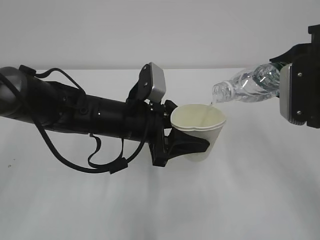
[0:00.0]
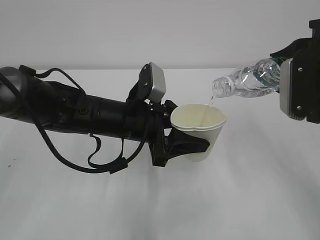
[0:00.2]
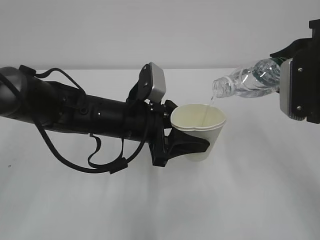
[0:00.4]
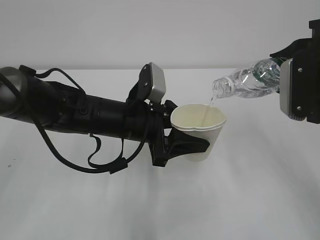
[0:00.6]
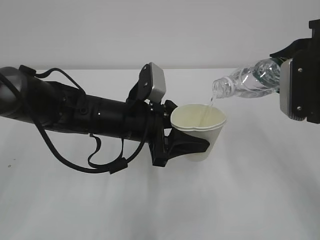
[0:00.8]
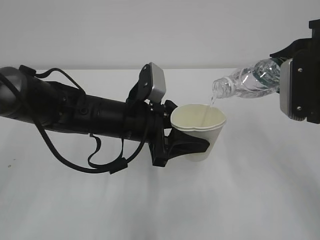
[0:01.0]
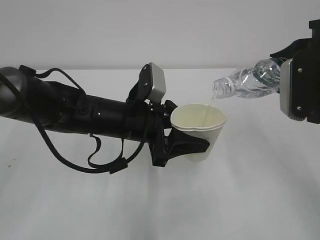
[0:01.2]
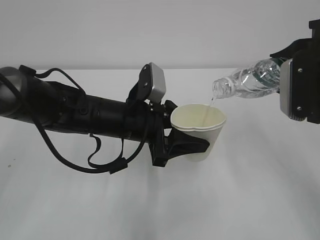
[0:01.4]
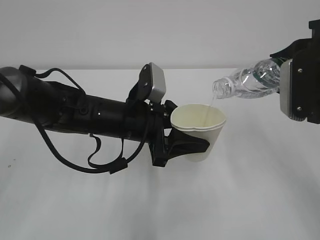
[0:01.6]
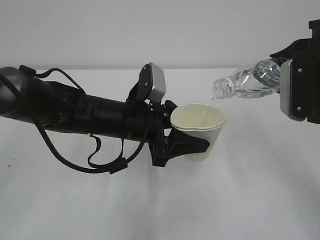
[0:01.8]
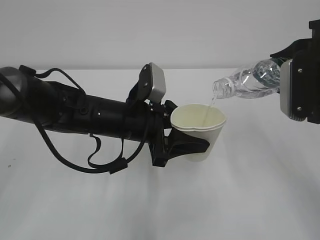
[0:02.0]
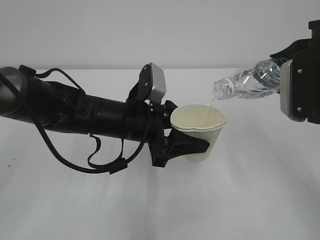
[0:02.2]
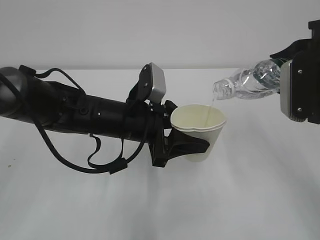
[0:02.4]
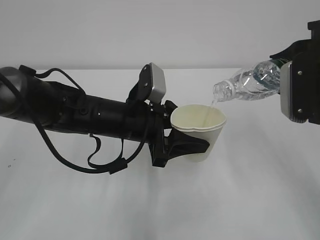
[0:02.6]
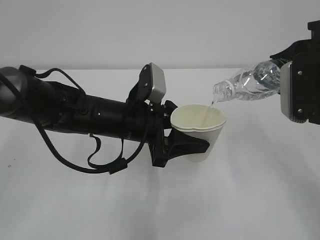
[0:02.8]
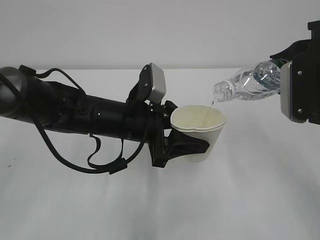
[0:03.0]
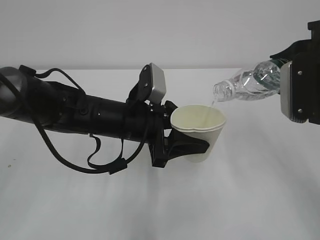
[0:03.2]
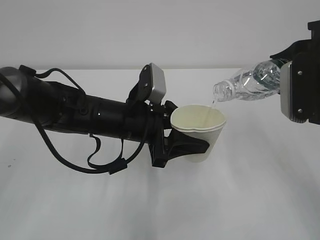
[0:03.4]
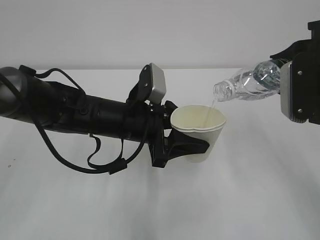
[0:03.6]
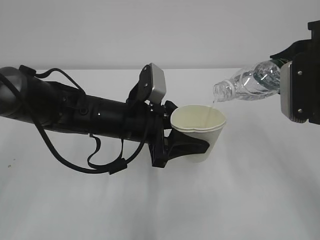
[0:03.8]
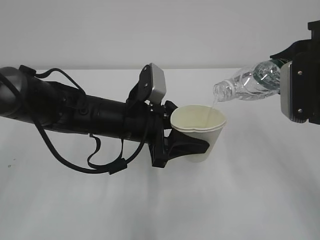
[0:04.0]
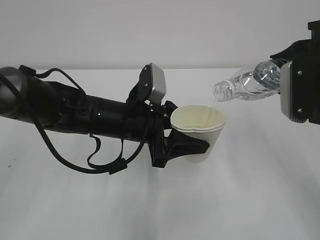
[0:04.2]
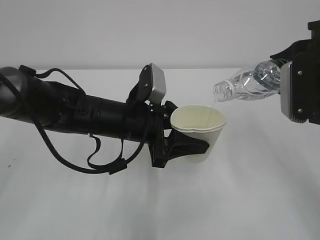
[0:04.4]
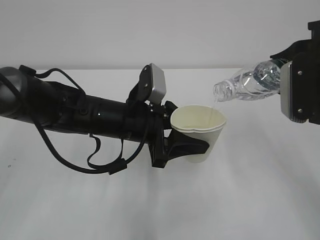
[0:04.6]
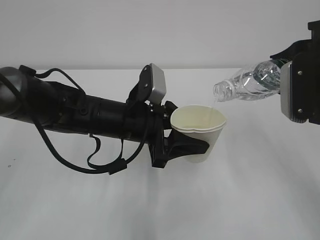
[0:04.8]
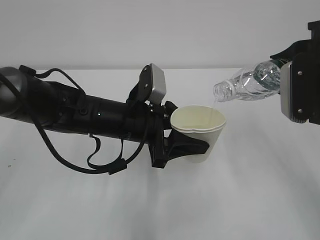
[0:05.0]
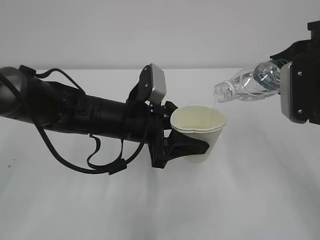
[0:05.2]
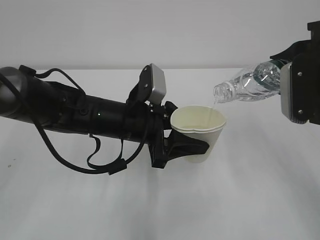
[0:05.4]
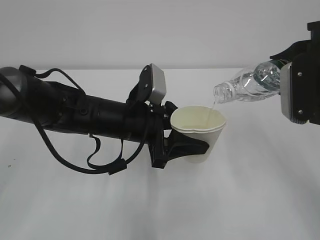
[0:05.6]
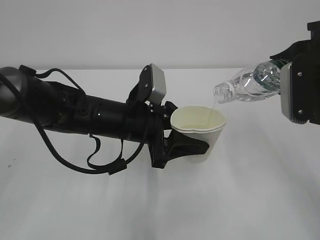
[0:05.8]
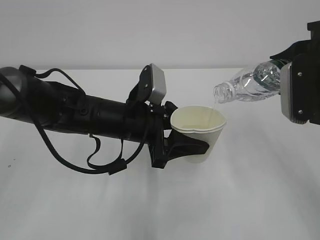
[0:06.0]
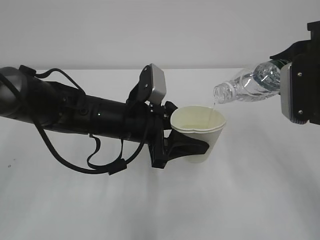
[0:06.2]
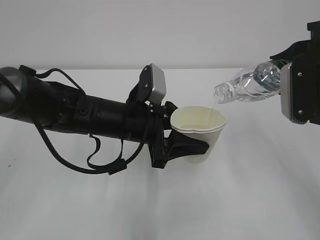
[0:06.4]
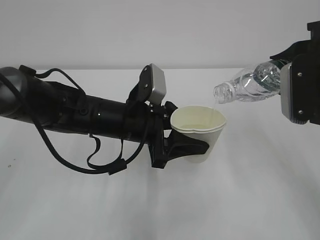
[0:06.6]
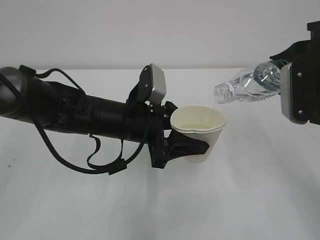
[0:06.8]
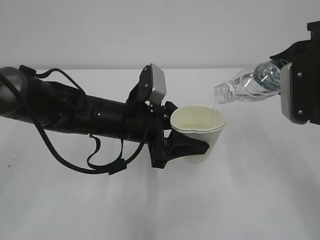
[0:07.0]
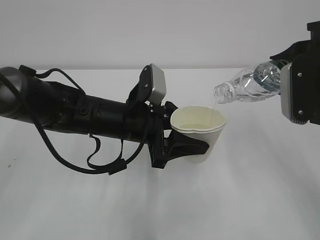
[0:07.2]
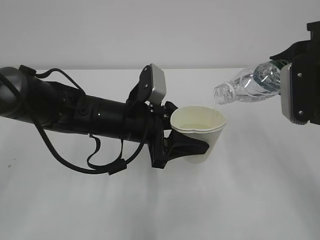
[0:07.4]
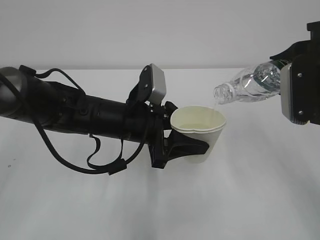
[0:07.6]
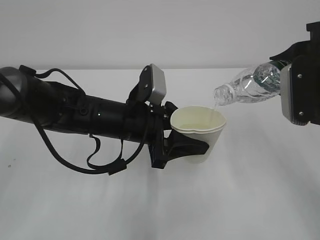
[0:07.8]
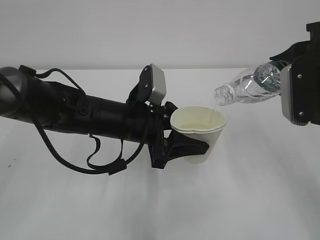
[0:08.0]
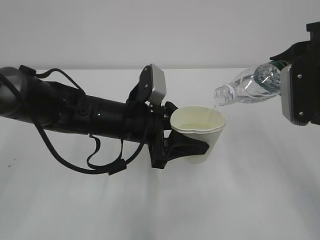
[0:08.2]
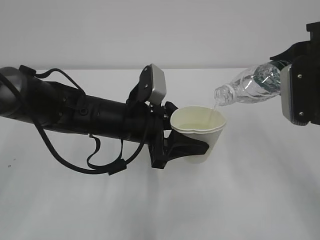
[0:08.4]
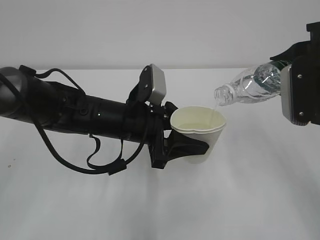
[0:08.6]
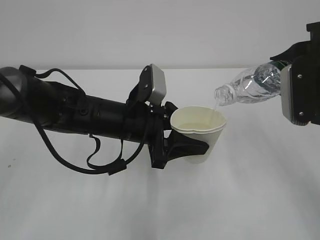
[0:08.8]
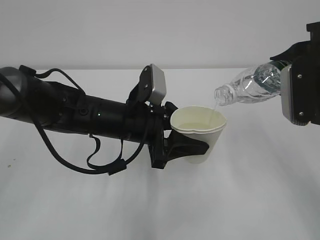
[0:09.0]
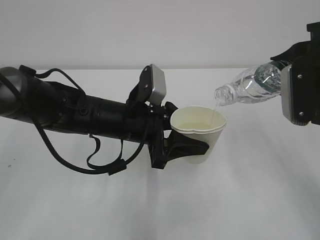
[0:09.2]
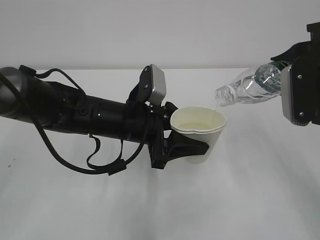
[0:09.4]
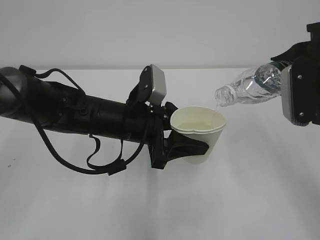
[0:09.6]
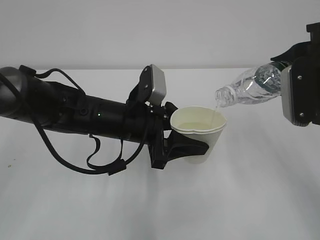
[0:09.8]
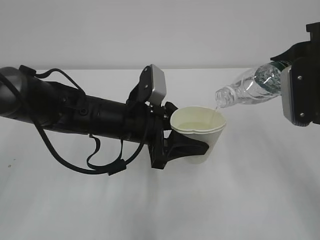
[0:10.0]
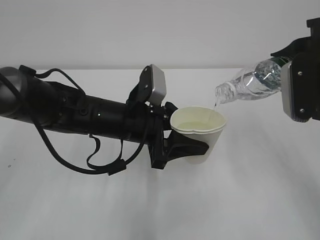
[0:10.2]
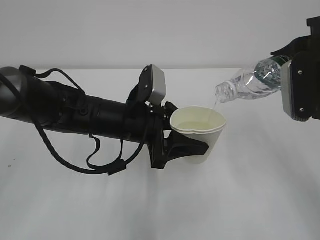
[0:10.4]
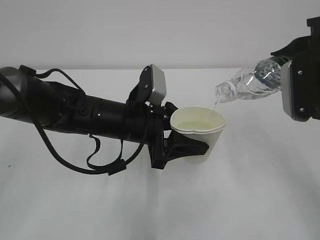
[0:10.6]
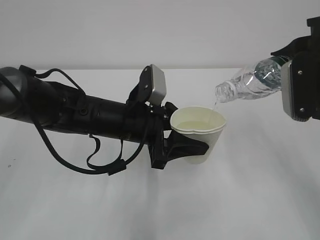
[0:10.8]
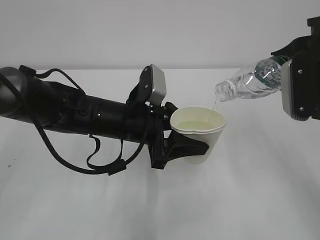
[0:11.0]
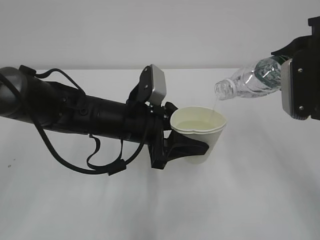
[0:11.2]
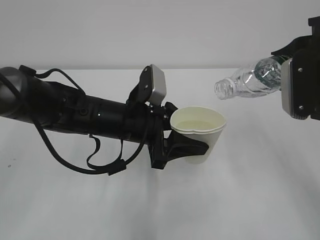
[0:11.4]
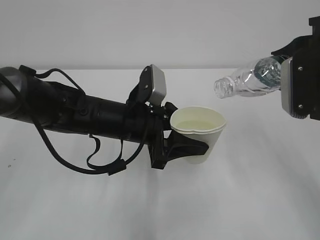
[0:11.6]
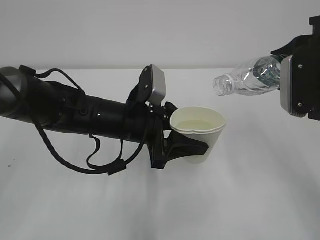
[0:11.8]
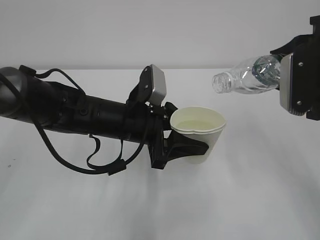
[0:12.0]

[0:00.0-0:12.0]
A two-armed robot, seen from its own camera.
0:00.0 to 0:09.0: Both grippers stay about where they are.
0:09.0 to 0:10.4: The two grippers keep their place.
0:10.4 to 0:12.0: The grippers make only small movements.

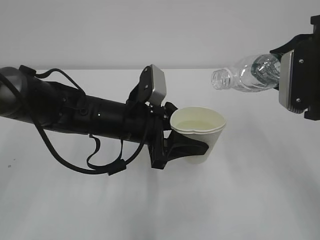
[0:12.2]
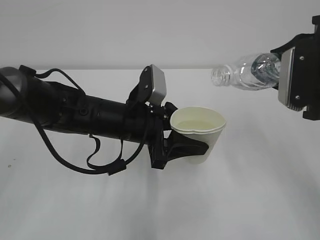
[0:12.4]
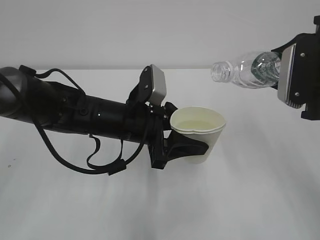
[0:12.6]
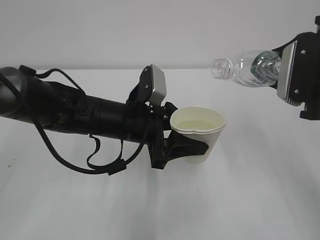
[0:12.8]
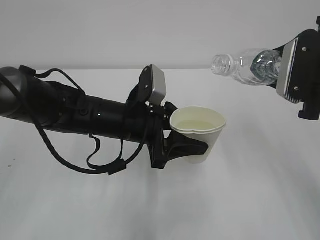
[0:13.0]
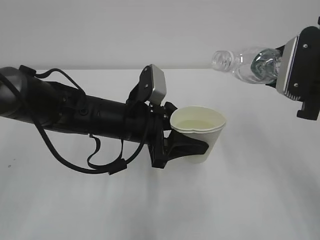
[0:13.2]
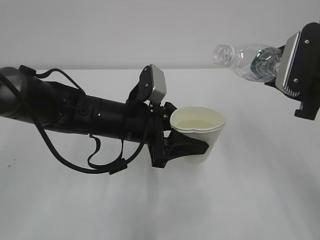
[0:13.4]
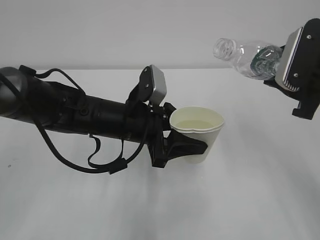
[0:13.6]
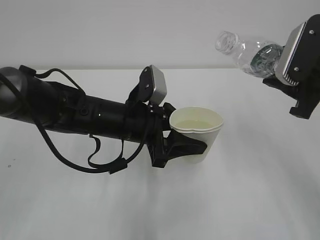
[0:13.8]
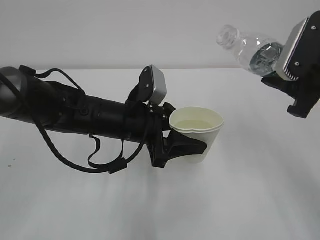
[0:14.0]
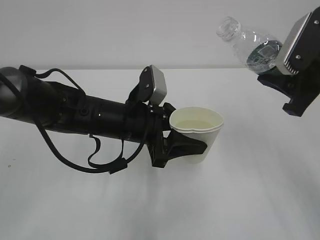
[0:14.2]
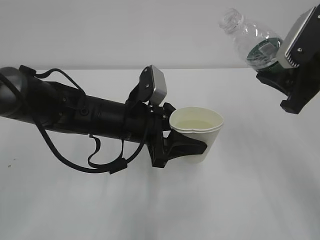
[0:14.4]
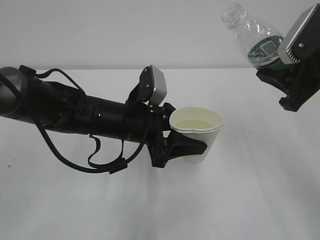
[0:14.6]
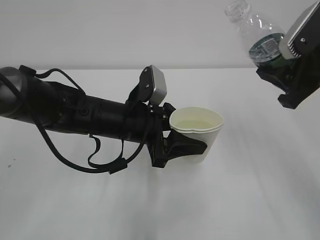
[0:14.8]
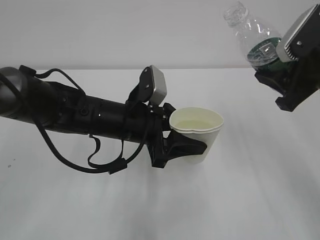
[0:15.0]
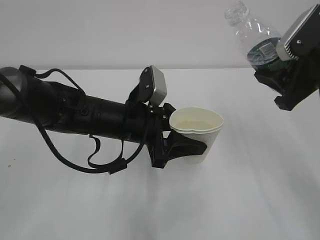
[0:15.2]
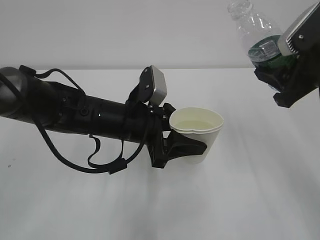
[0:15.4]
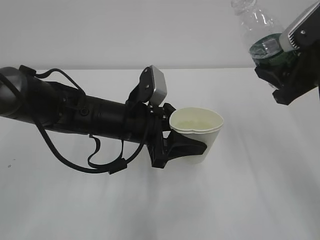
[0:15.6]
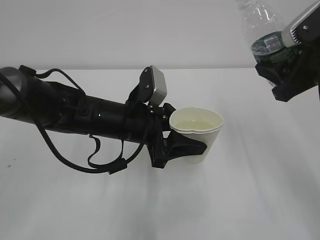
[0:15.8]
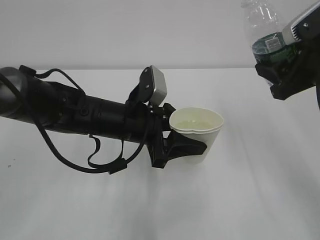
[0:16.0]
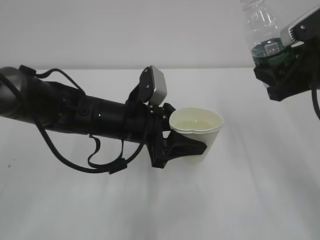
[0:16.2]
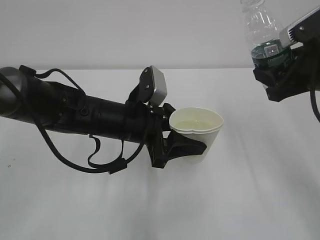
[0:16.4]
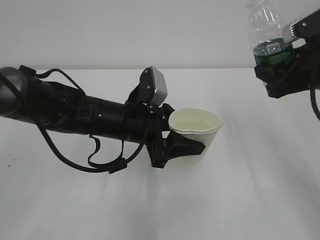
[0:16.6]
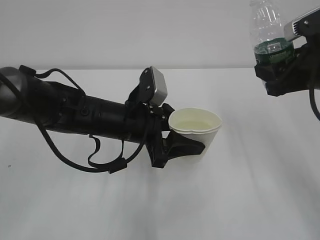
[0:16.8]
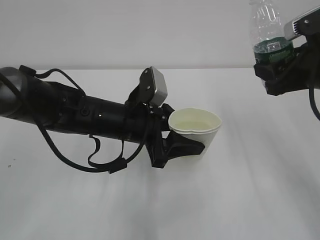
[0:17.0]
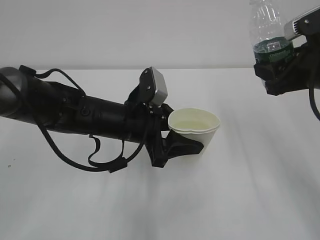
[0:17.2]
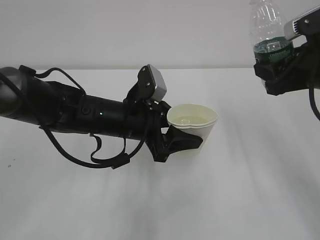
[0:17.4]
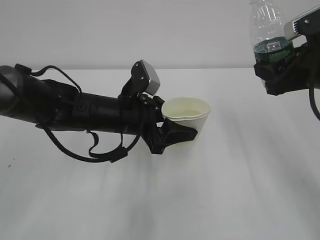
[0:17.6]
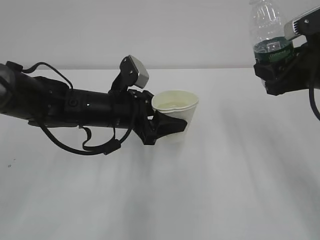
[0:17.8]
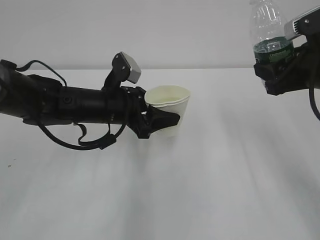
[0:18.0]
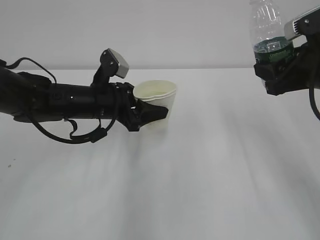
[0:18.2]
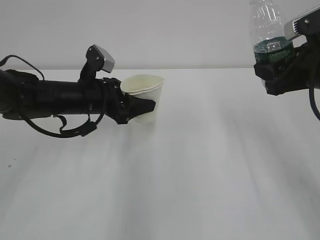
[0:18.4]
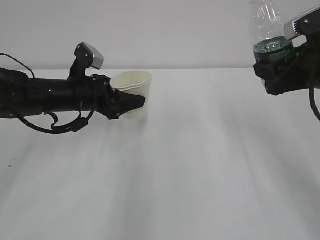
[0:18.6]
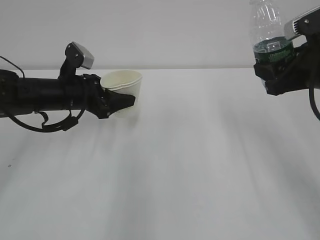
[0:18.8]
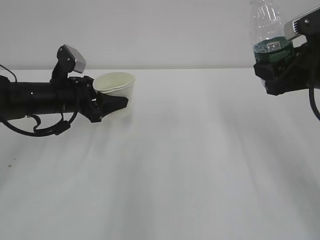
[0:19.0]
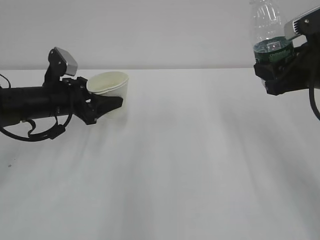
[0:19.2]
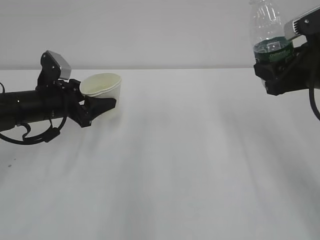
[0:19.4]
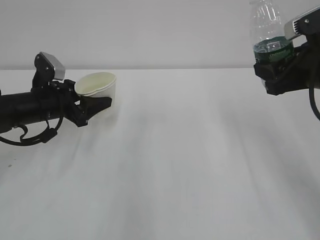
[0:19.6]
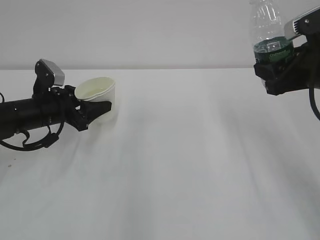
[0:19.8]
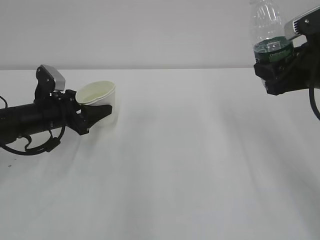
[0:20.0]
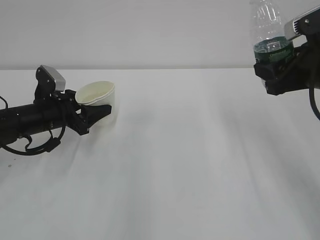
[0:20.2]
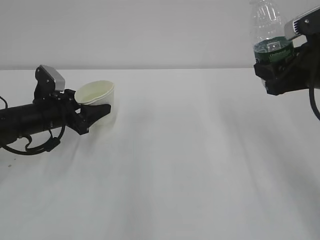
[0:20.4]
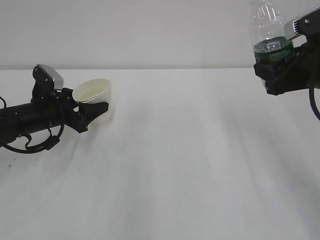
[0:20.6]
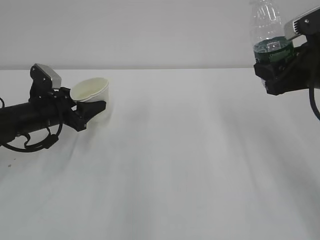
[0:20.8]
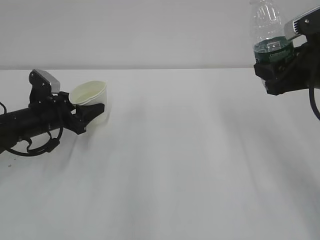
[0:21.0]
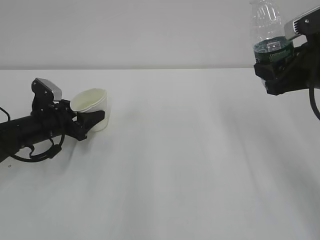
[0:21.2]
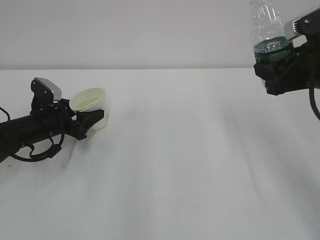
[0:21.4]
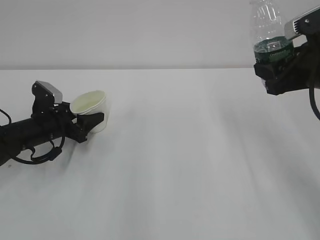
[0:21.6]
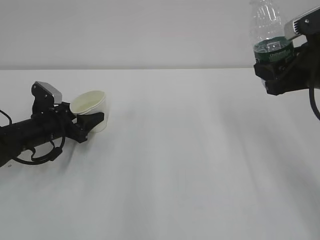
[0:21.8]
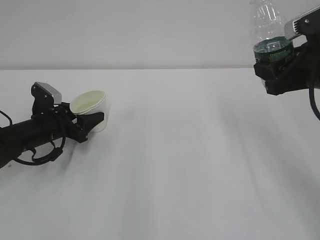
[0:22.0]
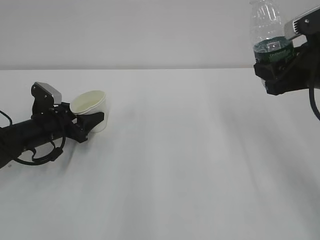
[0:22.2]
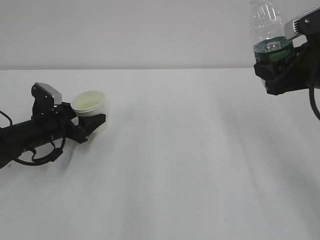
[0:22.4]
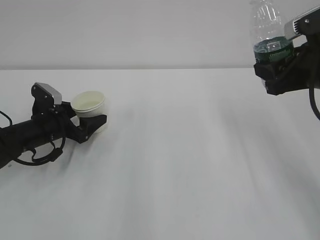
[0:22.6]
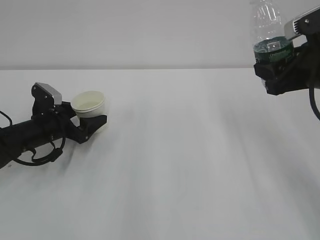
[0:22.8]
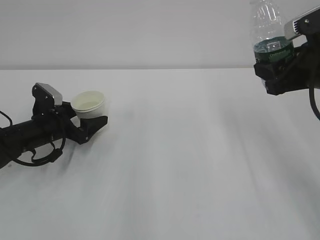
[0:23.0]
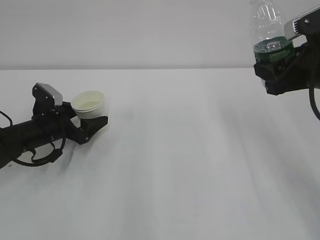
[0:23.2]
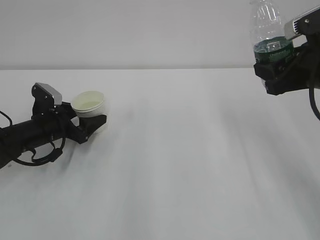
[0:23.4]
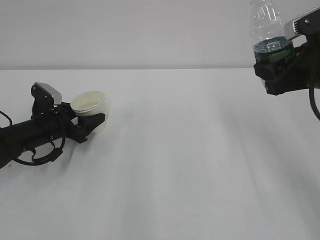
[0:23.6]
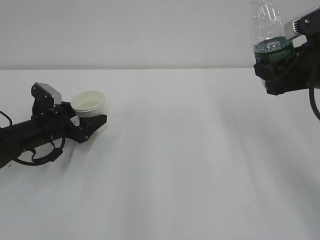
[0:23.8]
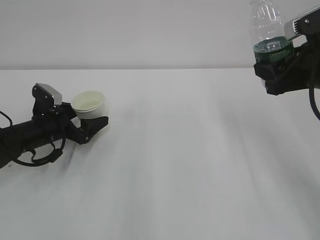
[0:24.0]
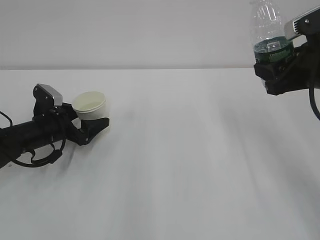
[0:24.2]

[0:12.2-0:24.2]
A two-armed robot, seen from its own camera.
0:15.2 to 0:16.6: There are only small adjustments of the grippers.
0:16.6 to 0:18.2: The left gripper heads to the left, covering some 5 cm.
0:18.2 to 0:19.8: The left gripper is displaced to the left by roughly 10 cm.
0:19.8 to 0:21.2: The left gripper ends up about 5 cm from where it was.
0:21.2 to 0:22.6: The left gripper opens its fingers.
0:22.6 to 0:24.2: Both grippers stay about where they are.
